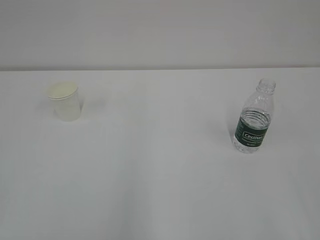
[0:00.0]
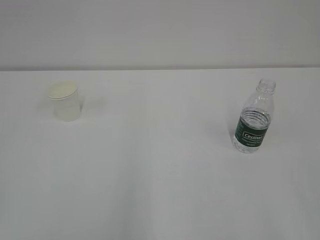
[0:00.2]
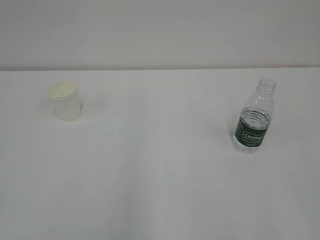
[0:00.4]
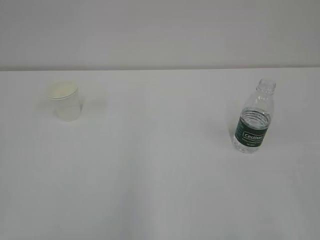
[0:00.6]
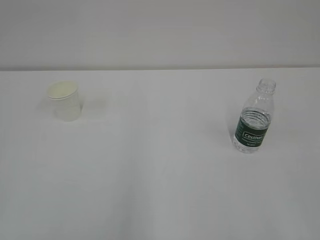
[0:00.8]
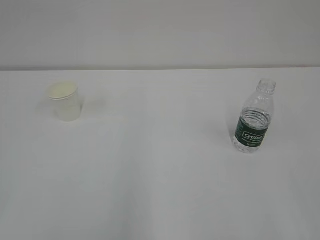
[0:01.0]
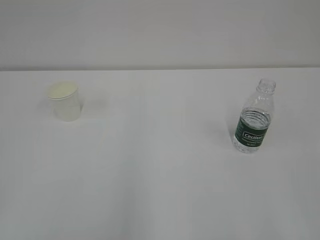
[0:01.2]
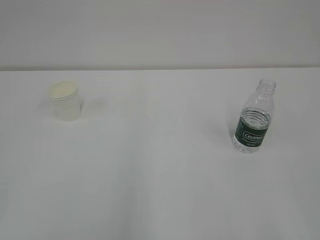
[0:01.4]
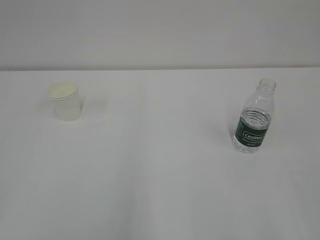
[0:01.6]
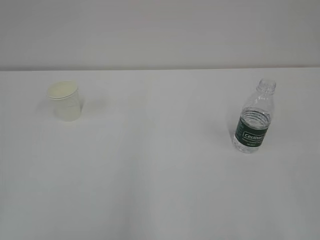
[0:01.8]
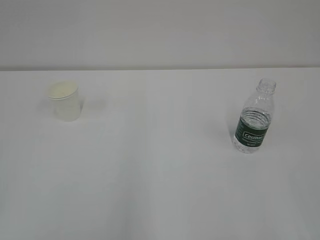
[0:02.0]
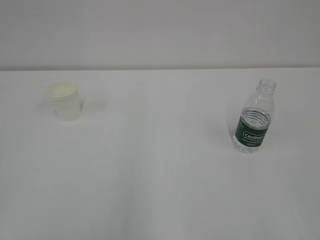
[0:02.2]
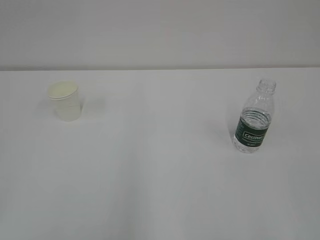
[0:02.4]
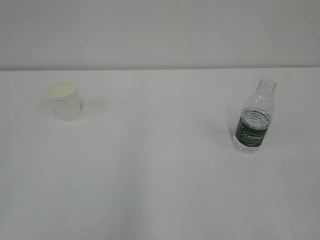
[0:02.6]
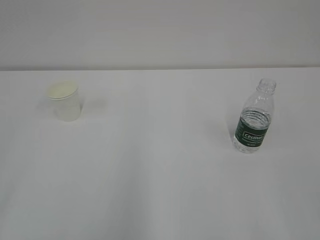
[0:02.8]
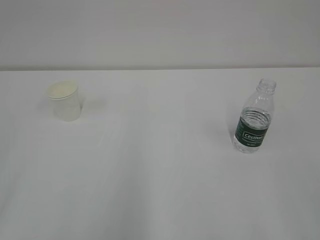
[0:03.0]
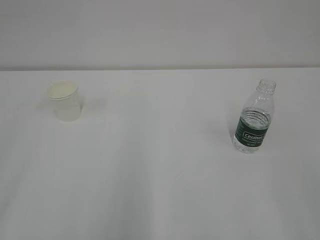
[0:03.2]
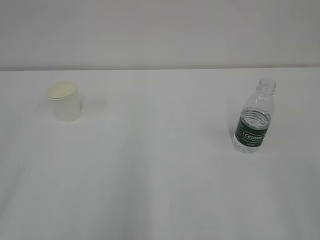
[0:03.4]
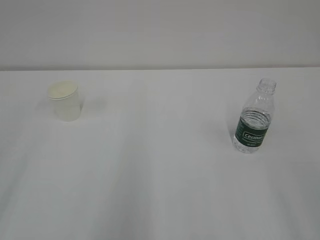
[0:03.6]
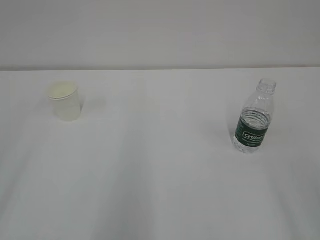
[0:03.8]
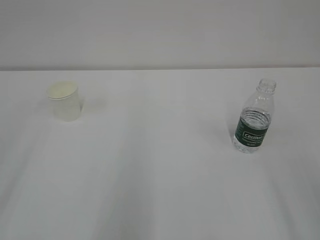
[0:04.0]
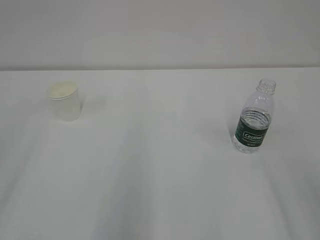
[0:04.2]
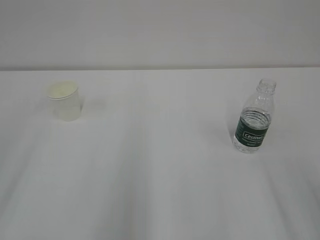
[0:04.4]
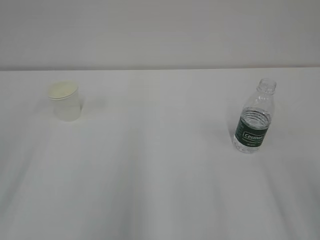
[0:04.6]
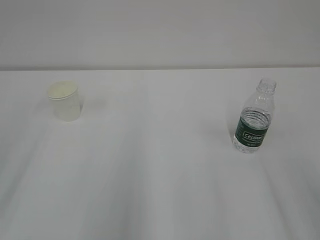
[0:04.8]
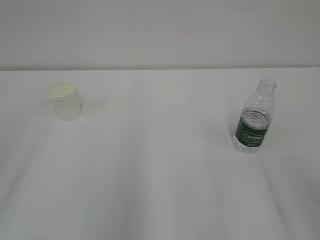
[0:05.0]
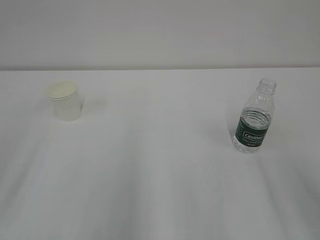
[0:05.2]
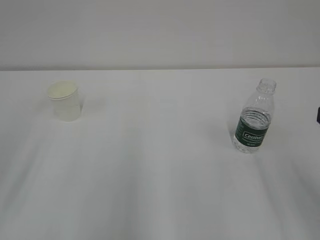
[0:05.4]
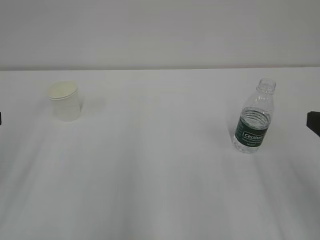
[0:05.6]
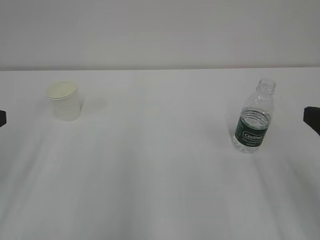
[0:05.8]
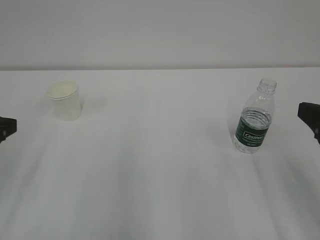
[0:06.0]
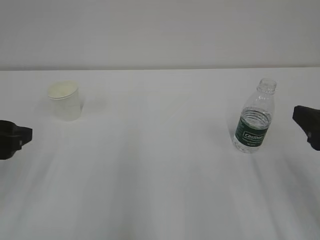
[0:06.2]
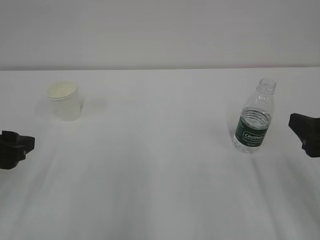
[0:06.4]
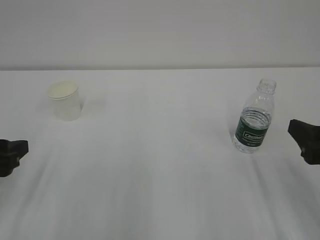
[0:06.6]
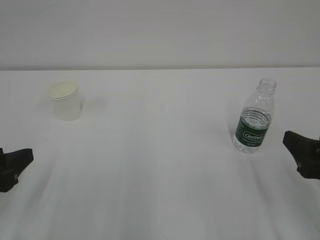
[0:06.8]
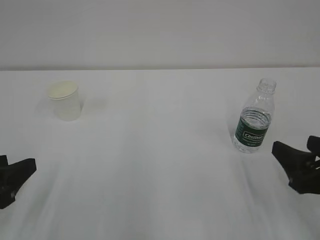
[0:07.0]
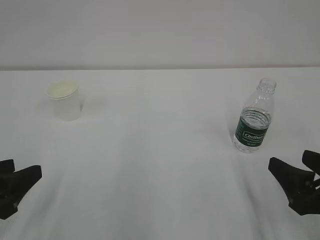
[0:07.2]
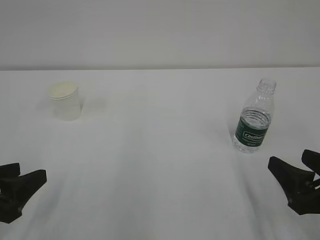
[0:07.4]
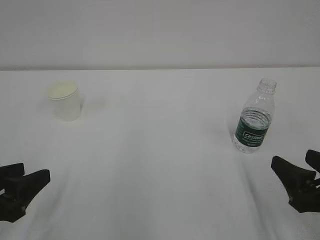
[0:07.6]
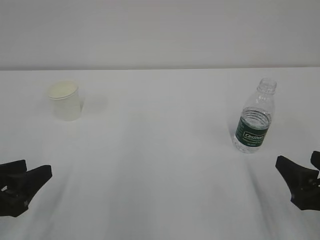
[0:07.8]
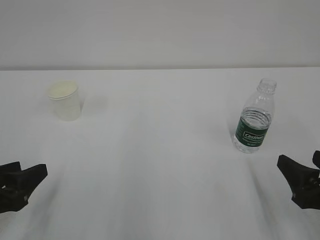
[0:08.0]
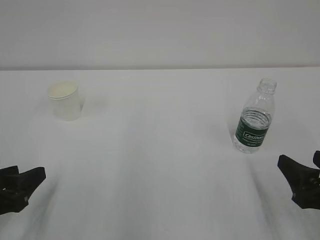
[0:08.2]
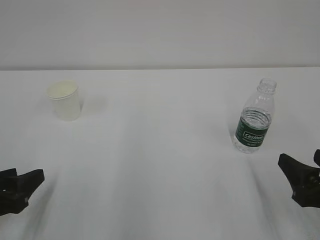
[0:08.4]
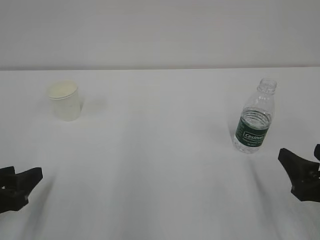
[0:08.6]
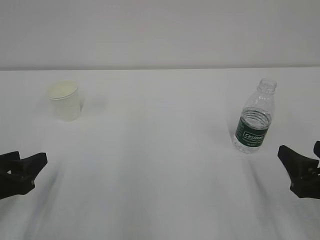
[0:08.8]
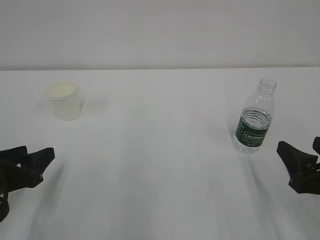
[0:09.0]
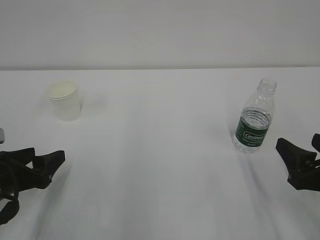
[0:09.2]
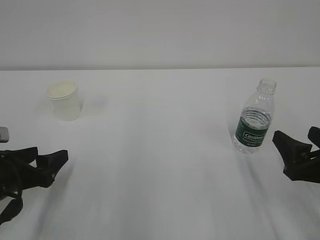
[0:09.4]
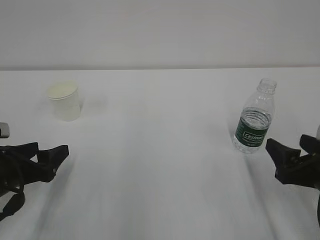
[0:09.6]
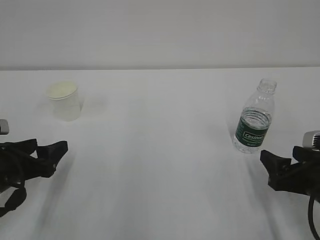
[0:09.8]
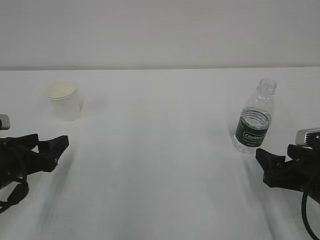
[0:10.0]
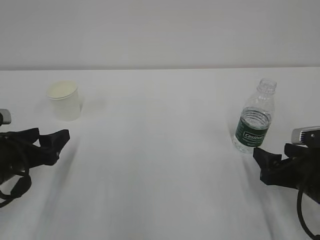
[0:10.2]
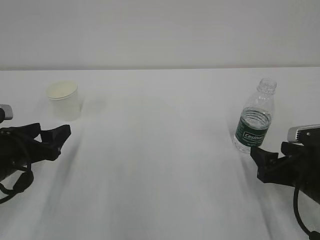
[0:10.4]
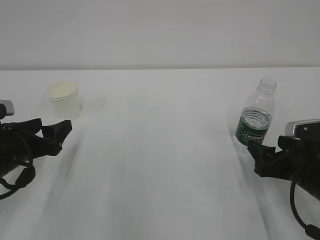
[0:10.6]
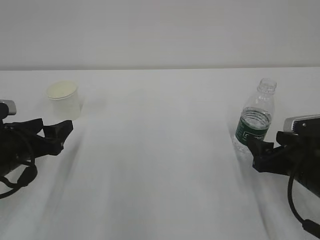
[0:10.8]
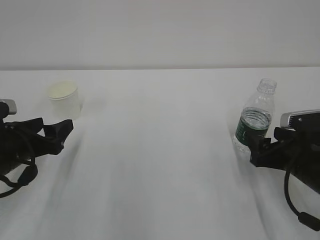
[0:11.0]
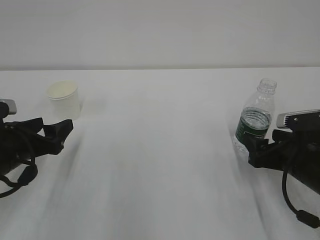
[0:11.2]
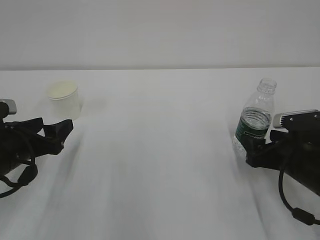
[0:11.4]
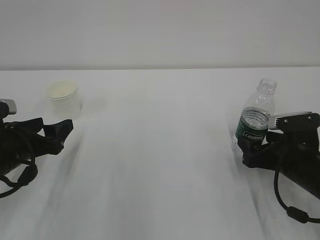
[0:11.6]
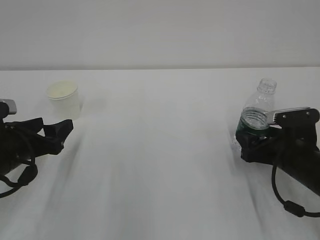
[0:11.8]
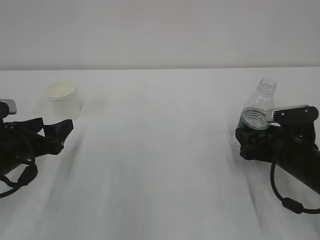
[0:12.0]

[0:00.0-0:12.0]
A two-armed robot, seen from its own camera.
0:04.4 to 0:06.0: The right gripper heads forward, covering about 10 cm.
0:06.0 to 0:07.6: The right gripper heads downward, covering roughly 10 cm. The left gripper goes roughly 10 cm downward and backward.
0:07.6 to 0:09.0: The left gripper ends up about 5 cm from where it was.
0:09.0 to 0:10.4: The right gripper moves forward, roughly 5 cm.
0:10.4 to 0:12.0: The right gripper travels forward by about 5 cm.

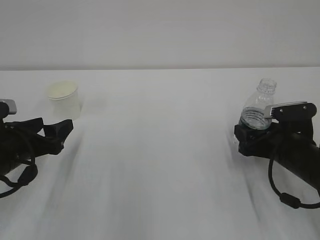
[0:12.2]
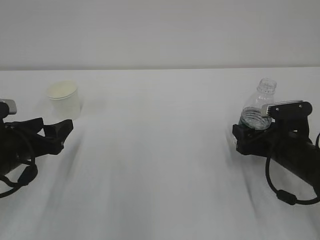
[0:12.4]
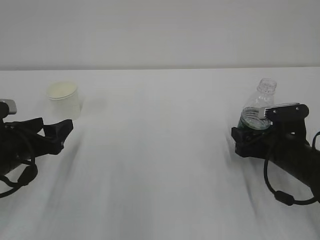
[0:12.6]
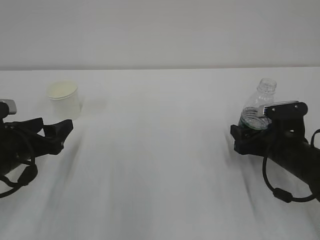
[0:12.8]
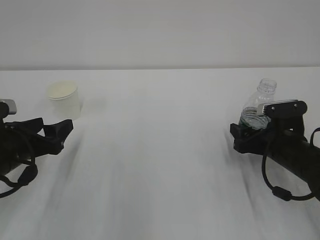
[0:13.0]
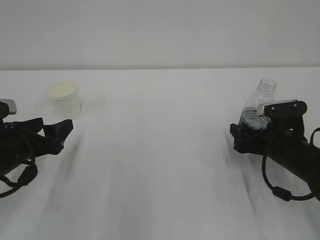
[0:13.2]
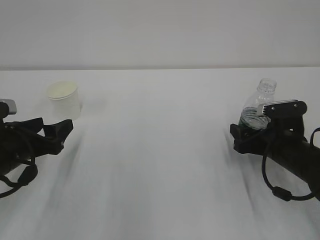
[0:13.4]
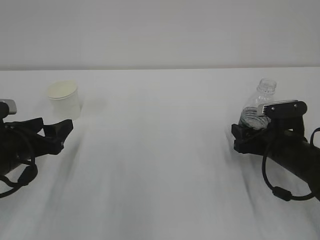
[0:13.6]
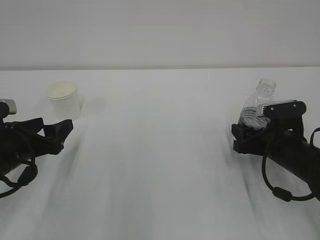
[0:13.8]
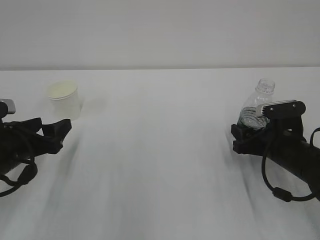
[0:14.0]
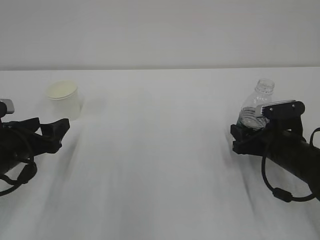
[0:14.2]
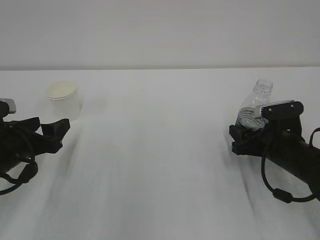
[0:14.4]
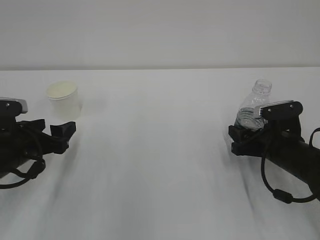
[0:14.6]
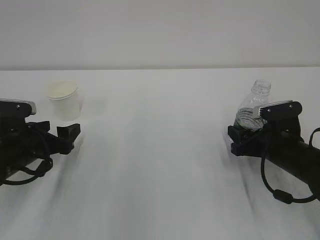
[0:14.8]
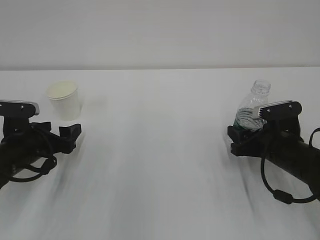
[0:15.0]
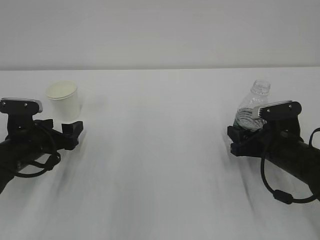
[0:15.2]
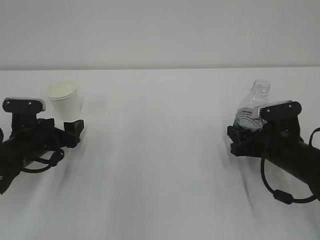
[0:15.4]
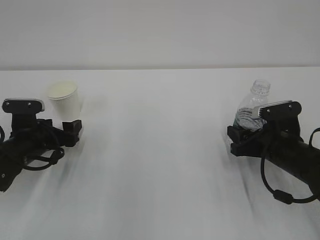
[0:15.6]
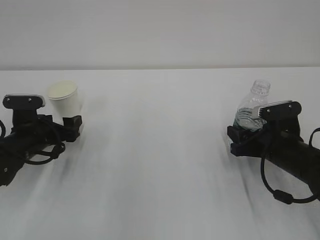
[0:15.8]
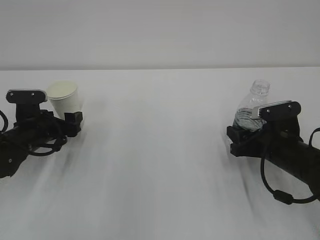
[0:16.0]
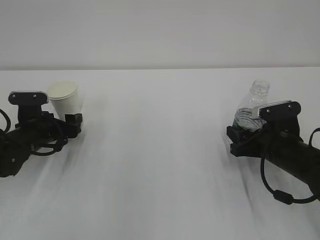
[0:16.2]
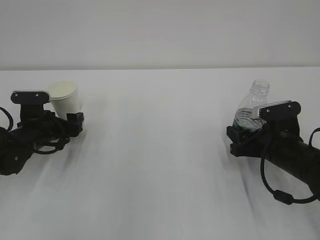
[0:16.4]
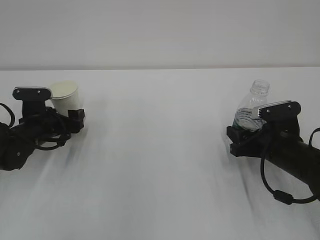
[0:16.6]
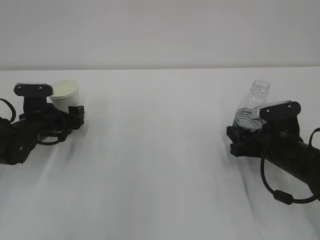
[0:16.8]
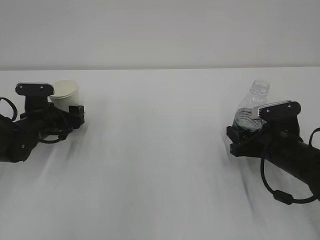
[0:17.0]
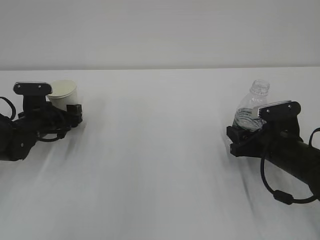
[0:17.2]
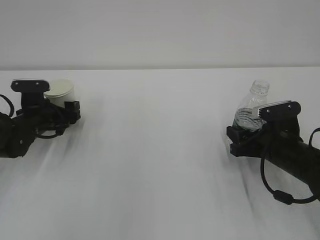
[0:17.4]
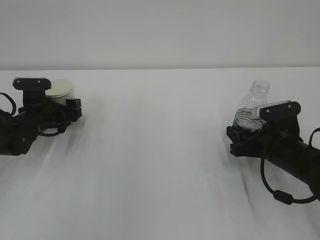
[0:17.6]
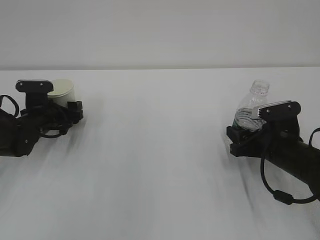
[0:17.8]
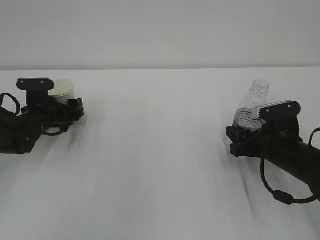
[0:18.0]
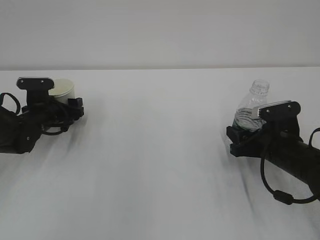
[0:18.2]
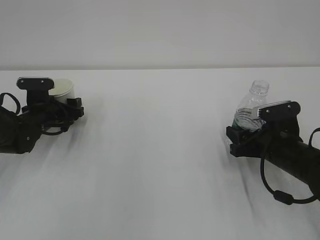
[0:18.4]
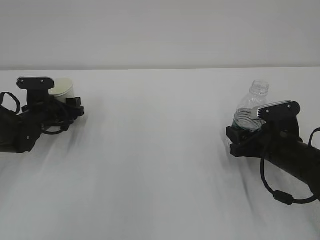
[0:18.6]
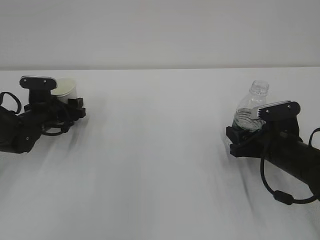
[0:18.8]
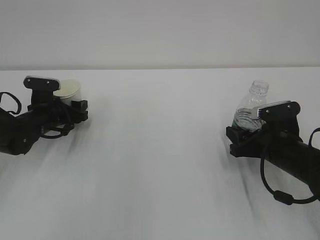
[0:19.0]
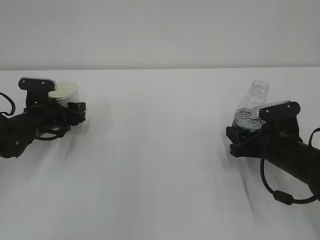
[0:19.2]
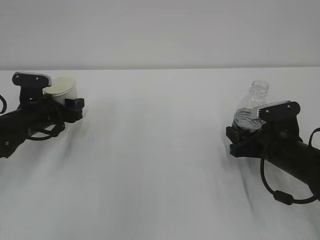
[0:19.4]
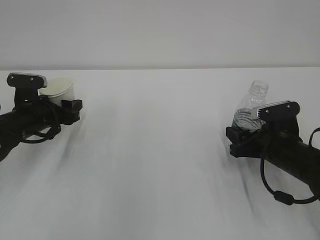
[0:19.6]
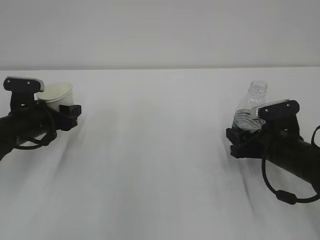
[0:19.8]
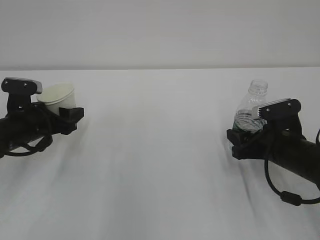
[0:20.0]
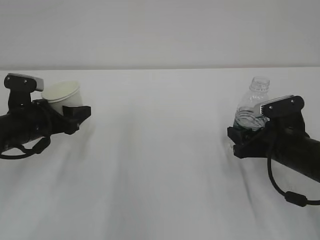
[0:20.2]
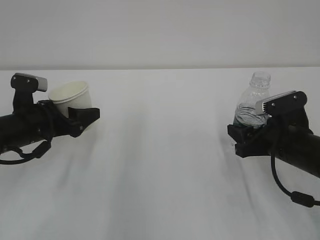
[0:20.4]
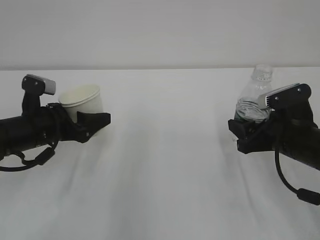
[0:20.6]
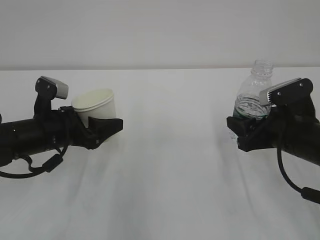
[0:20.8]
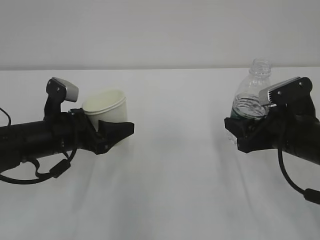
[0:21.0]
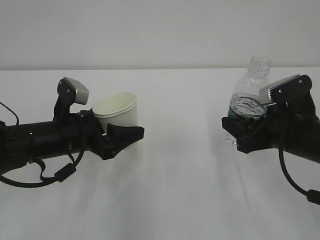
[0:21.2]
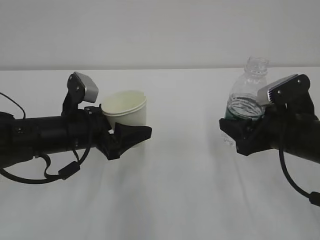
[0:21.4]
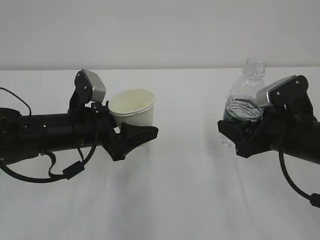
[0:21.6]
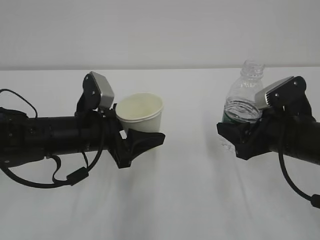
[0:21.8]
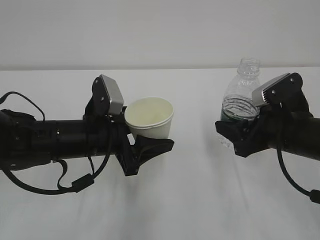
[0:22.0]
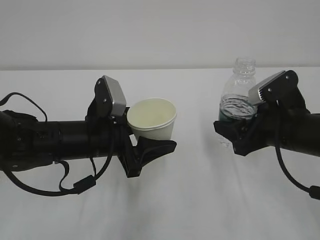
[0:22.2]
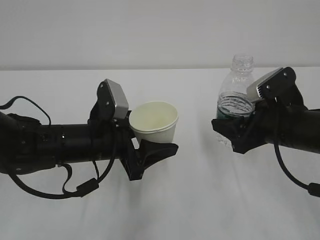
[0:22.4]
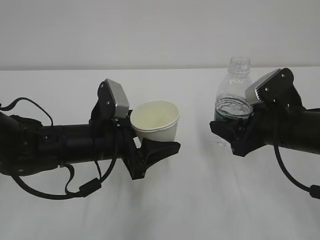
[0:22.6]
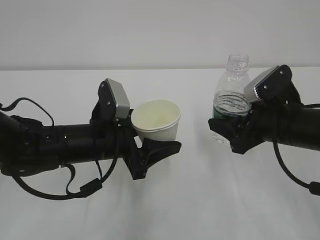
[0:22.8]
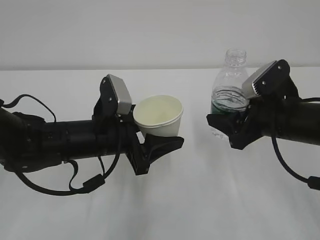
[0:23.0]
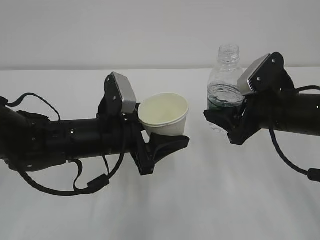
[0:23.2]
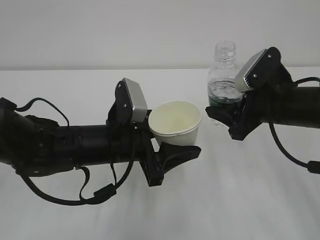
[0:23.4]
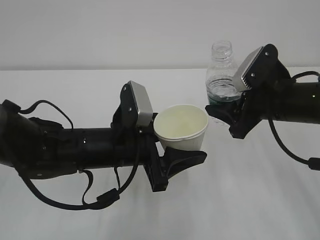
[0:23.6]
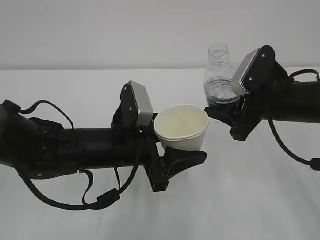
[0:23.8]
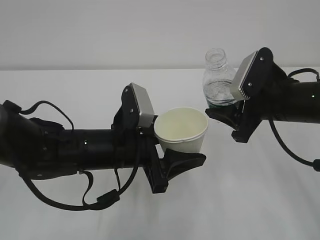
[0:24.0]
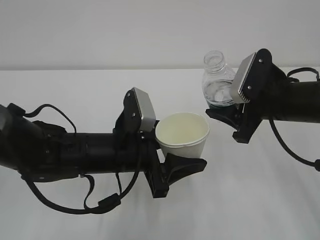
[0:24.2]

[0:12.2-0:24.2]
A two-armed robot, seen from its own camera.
0:12.2 to 0:13.8: The right gripper closes.
0:13.8 to 0:15.2: The left gripper moves forward, approximately 5 cm.
0:15.2 to 0:16.6: The left gripper moves forward, approximately 5 cm.
0:16.6 to 0:18.2: The grippers move only a little.
0:18.2 to 0:19.8: The left gripper moves backward, some 5 cm.
0:19.8 to 0:21.2: The right gripper travels upward by about 5 cm, while the left gripper travels to the right and backward by some 10 cm.
0:21.2 to 0:22.6: The left gripper moves to the right, roughly 5 cm.
